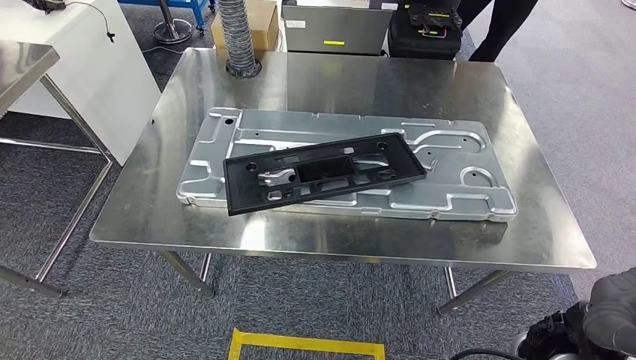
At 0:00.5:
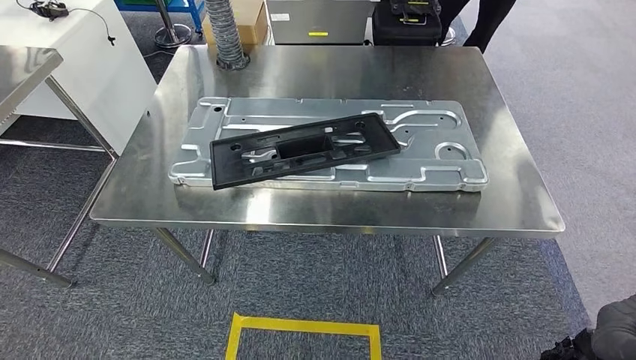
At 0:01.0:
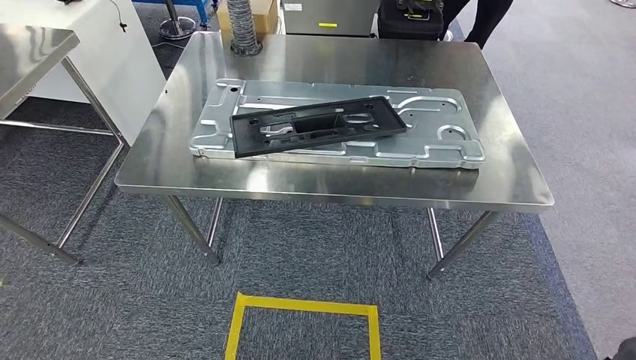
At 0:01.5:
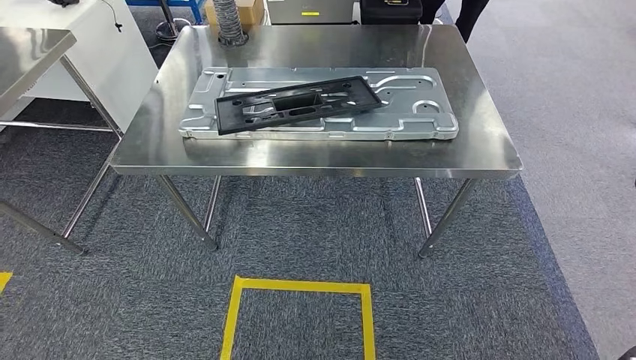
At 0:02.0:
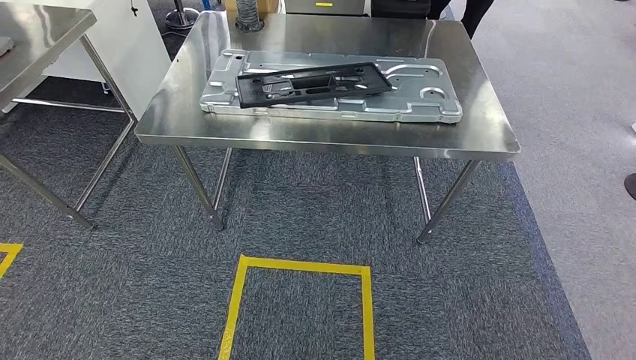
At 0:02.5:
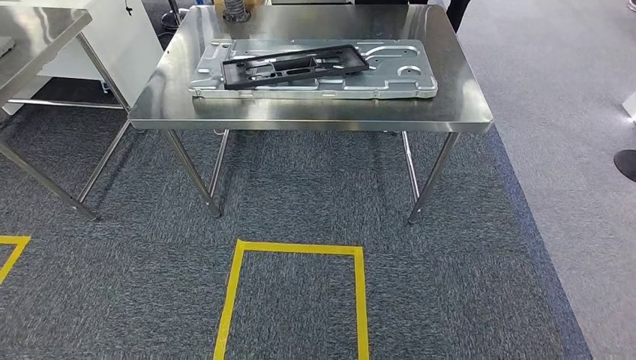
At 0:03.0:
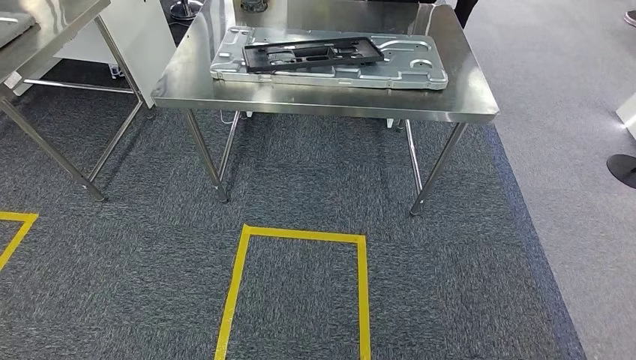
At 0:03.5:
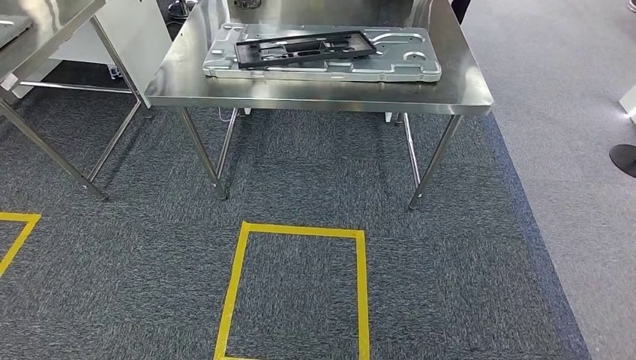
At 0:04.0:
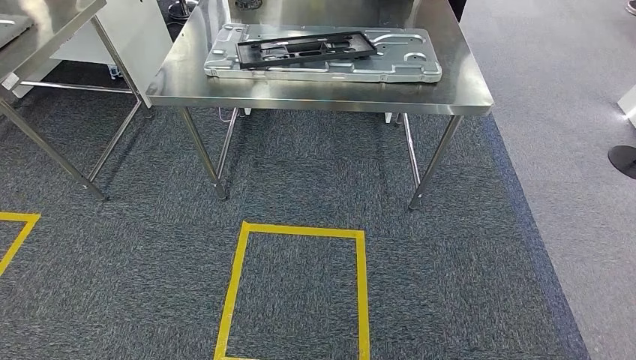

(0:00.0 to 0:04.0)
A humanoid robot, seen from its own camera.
Step, 0:00.0 - 0:04.0: Return to the initial position at the shelf.
